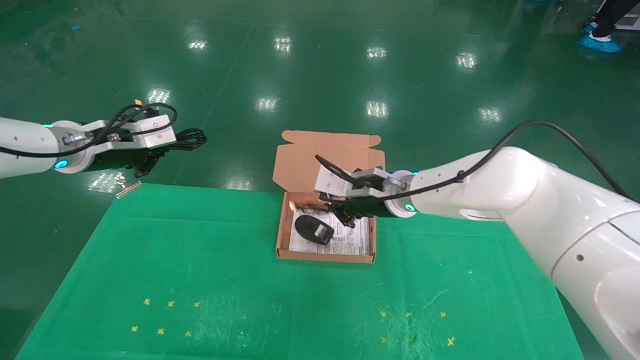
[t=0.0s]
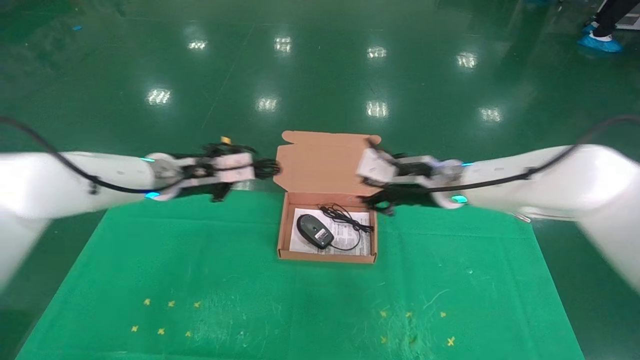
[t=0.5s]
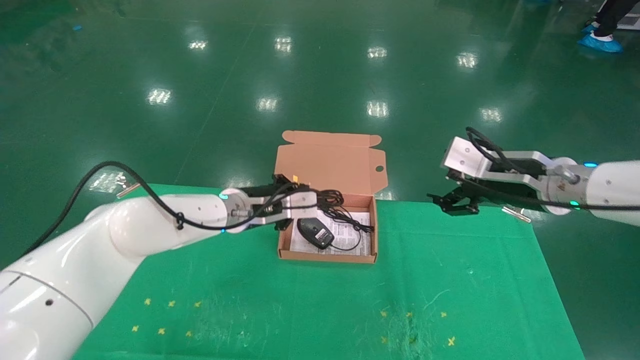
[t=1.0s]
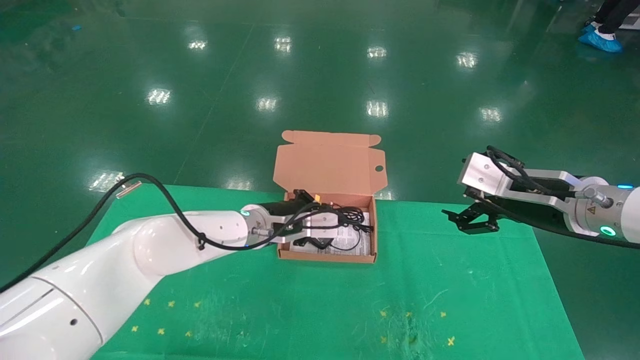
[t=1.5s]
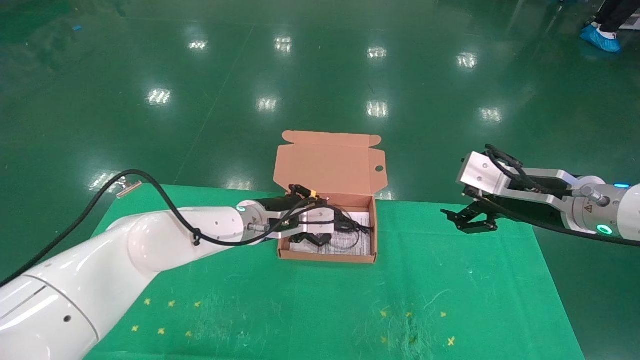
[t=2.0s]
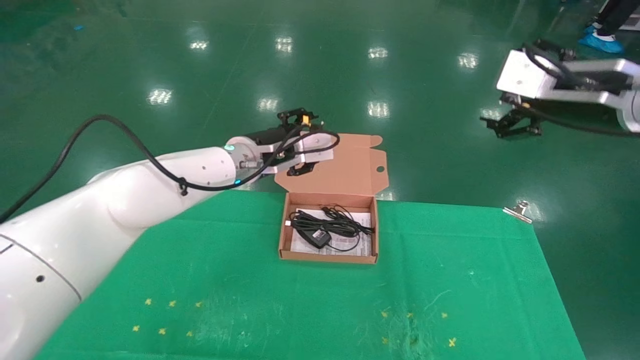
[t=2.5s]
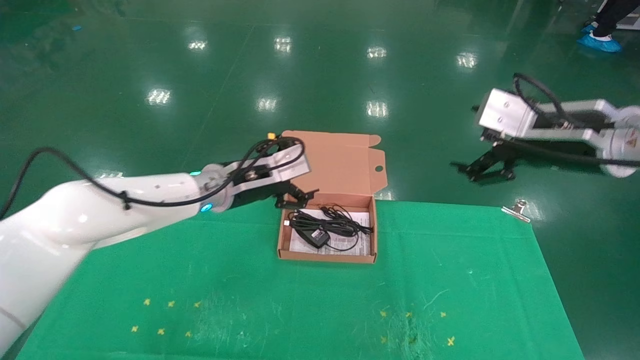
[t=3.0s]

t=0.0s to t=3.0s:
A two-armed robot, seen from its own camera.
Task of the whole recording: grasp data cable left put into box grasp mouse right put into box.
t=0.0s to t=1.5s: The right gripper travels to the right and backward by some 20 cm, and opens its fingers. Meanwhile the left gripper heads to the right and downward, covering roughly 25 cm.
t=1.5s to t=3.0s: The left gripper travels upward and to the left by roughly 10 cm, and opens. The right gripper goes about 5 cm upward.
